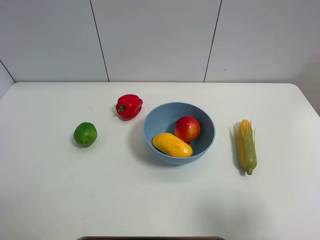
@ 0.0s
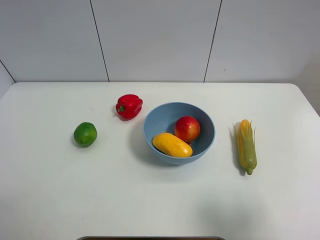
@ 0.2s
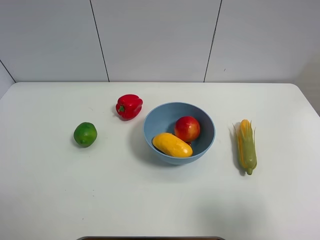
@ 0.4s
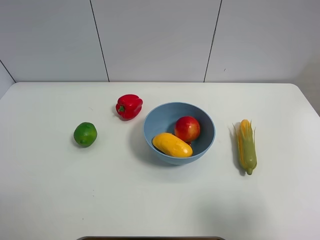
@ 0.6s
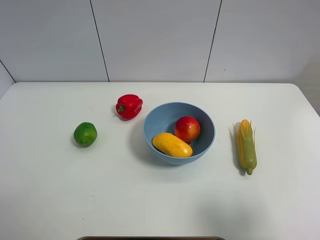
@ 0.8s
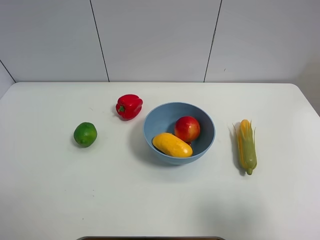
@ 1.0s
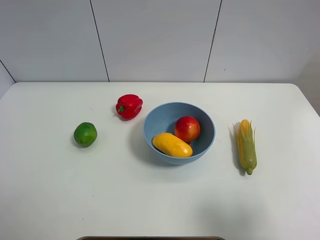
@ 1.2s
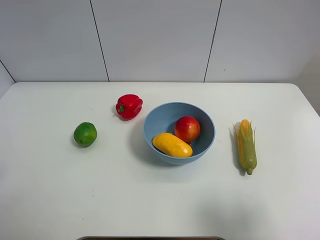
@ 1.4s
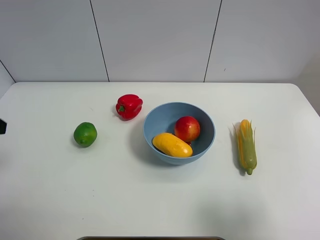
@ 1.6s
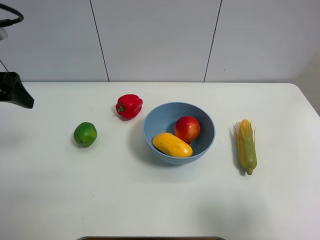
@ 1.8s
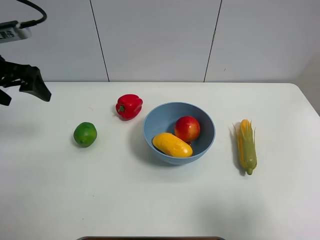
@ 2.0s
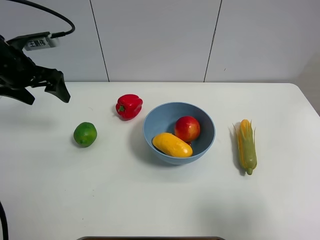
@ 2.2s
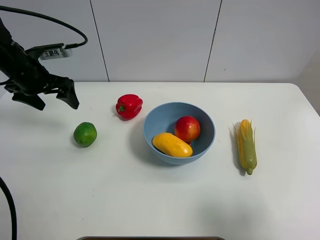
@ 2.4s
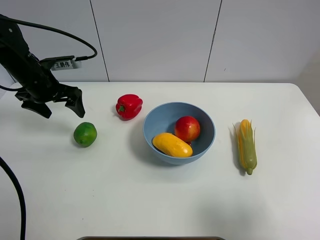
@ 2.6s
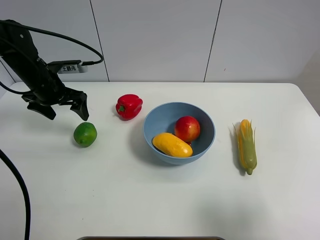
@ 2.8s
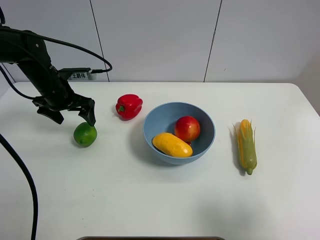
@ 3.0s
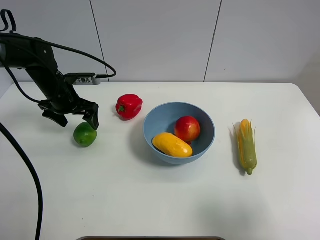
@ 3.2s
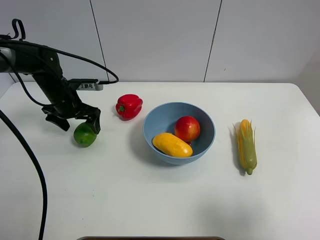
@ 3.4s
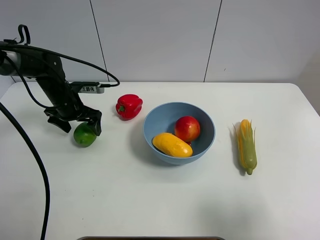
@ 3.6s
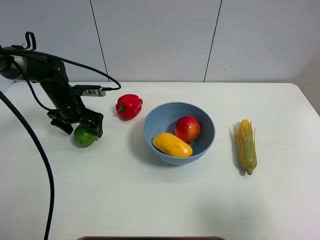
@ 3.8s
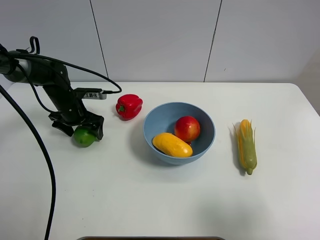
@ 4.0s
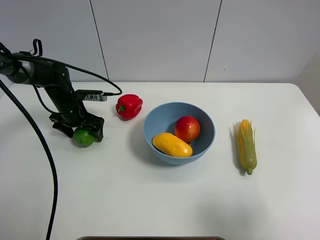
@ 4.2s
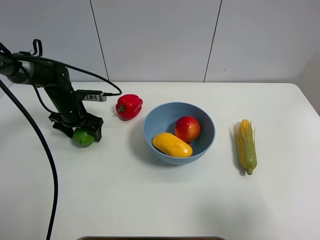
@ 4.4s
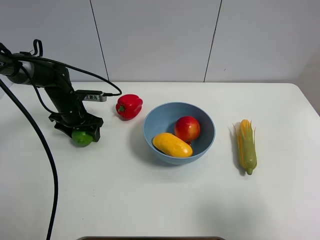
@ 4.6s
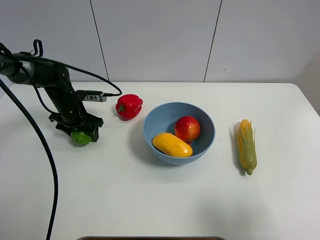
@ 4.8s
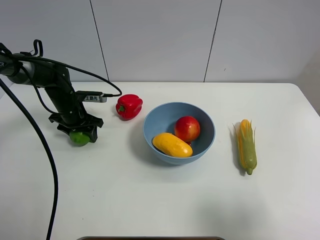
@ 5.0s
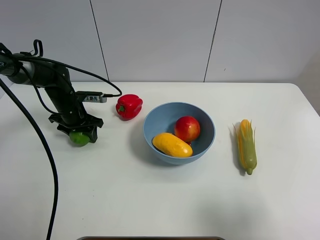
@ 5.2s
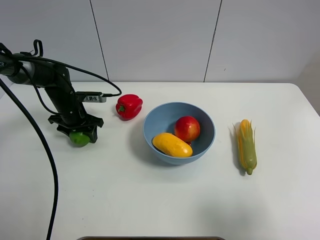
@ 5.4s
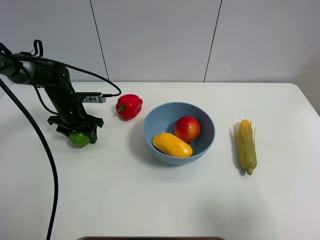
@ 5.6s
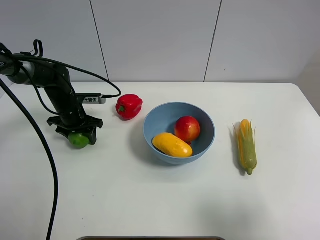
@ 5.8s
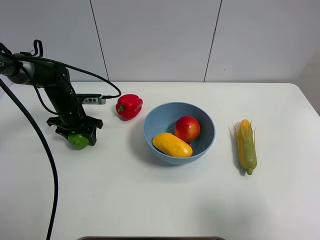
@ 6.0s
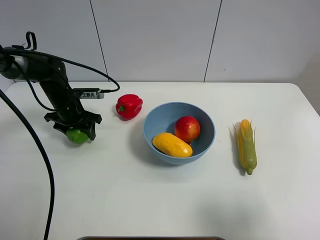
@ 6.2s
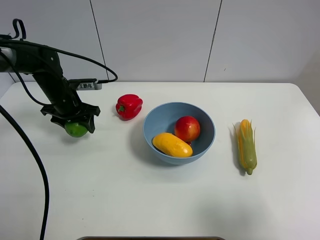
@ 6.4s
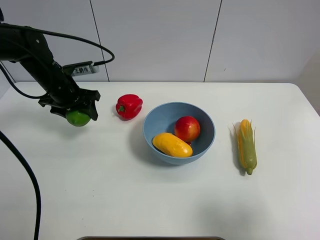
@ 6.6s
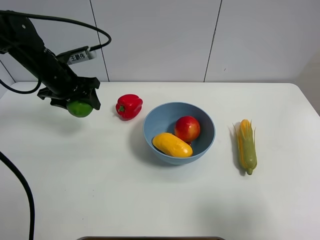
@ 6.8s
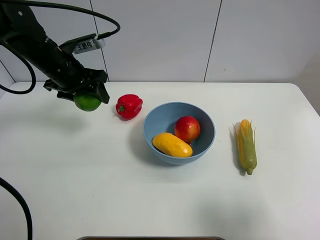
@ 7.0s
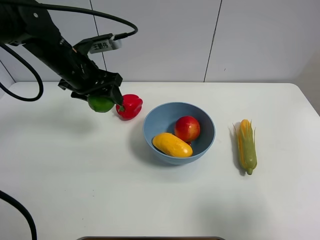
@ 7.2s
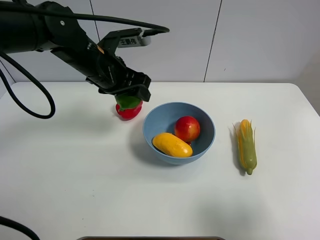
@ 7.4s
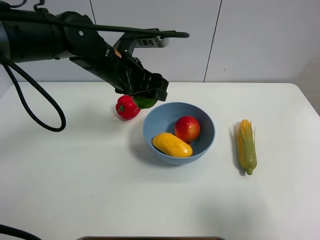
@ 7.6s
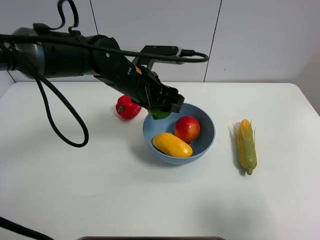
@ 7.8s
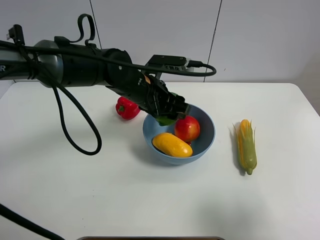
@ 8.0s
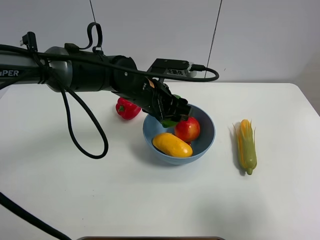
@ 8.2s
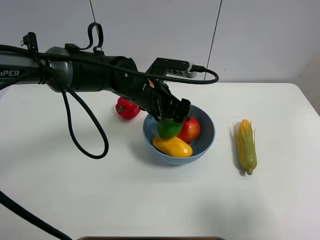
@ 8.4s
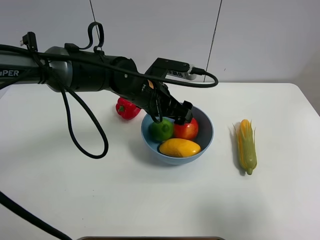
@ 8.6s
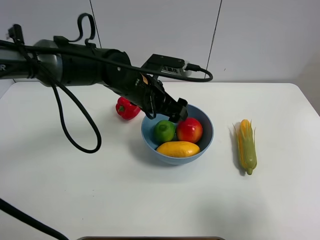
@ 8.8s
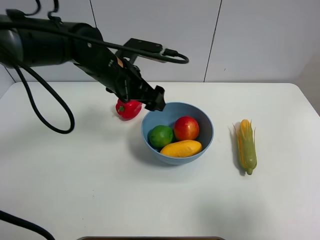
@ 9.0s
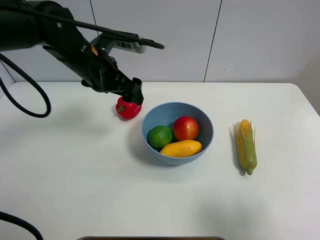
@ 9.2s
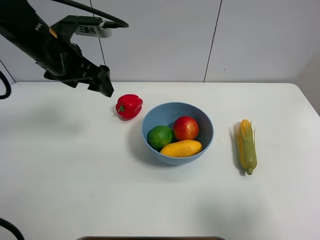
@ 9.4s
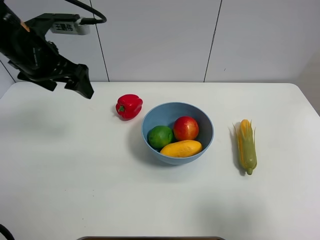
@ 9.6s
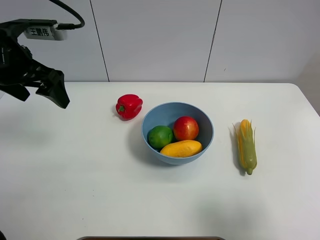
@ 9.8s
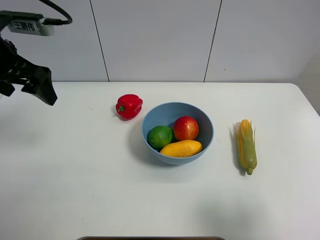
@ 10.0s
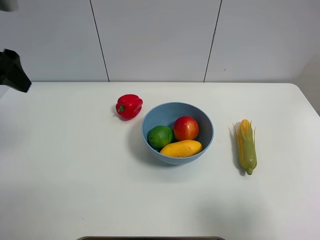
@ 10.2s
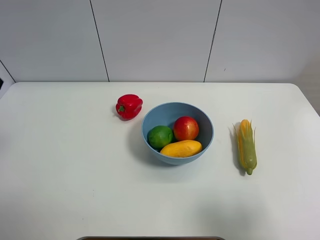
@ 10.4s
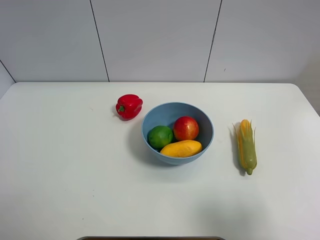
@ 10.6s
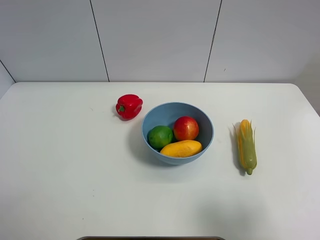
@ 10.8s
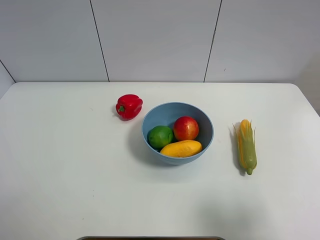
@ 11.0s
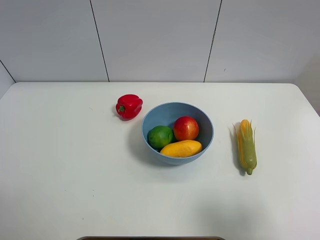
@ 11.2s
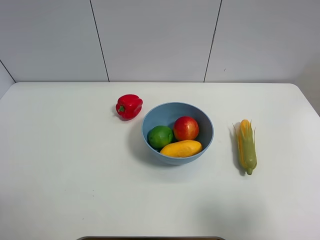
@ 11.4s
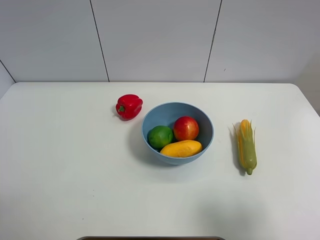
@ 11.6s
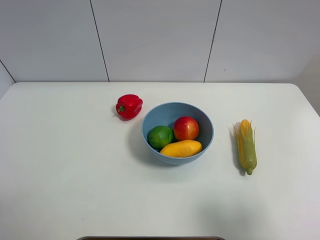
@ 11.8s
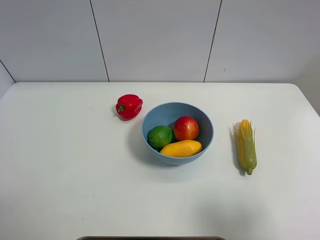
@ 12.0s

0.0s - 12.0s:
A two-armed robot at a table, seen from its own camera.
Task of the whole recording: Put the three fruits on the table into a bowl.
Step, 0.0s - 4.8s: Grasp the green lemon with left gripper.
Step, 5.0s - 8.6s: Place the green lemon in the blue bowl with left gripper.
1.6s - 3.0s: The left gripper goes about 25 cm forward, downward and to the right.
3.0s - 4.4s: The left gripper is displaced downward by about 10 cm.
4.4s - 6.0s: The left gripper closes its fingers.
6.0s - 7.6s: The left gripper goes approximately 25 cm to the right, upward and backward.
7.6s - 9.0s: The left gripper opens.
9.0s - 10.4s: The left gripper shifts roughly 30 cm to the left, upward and backward.
